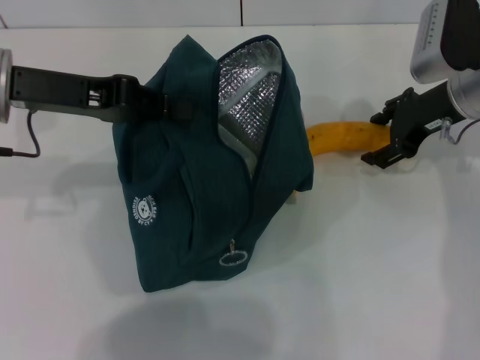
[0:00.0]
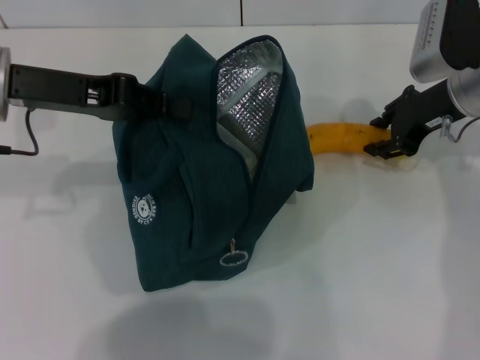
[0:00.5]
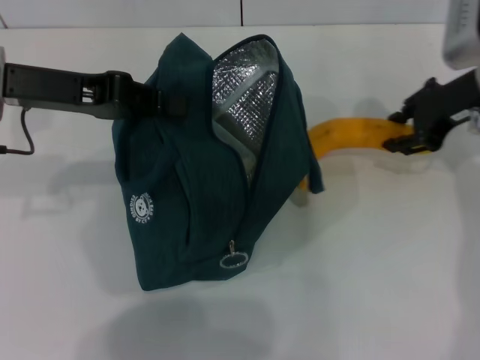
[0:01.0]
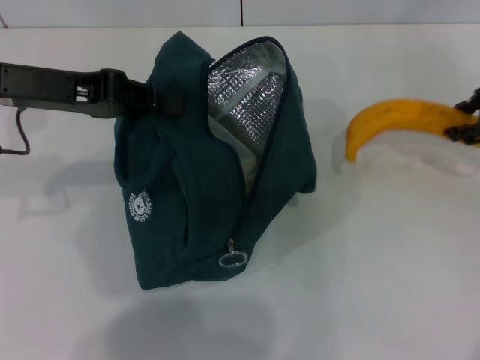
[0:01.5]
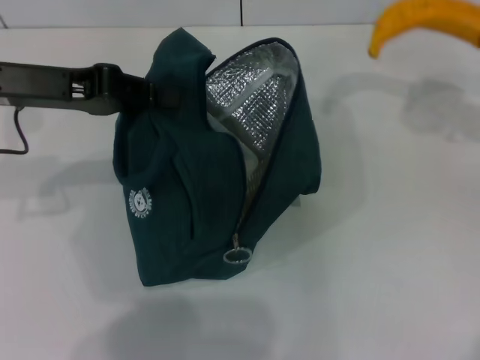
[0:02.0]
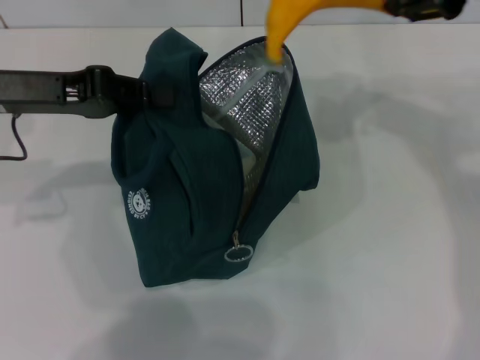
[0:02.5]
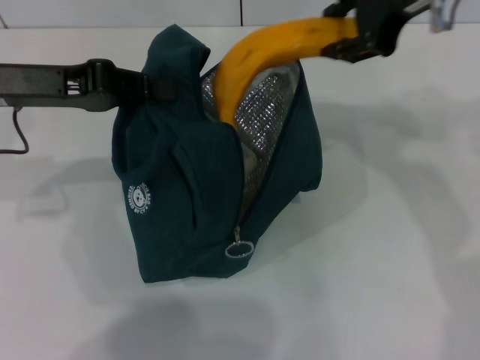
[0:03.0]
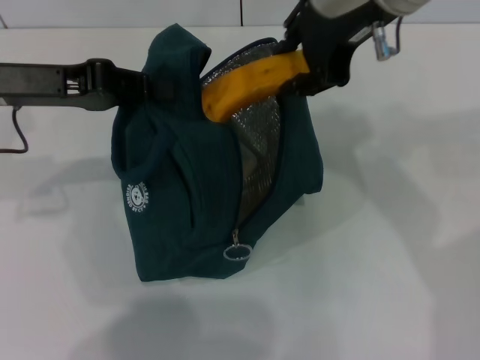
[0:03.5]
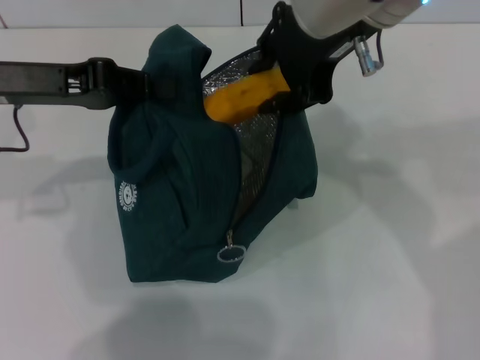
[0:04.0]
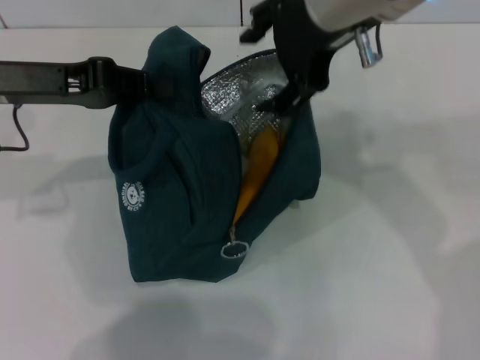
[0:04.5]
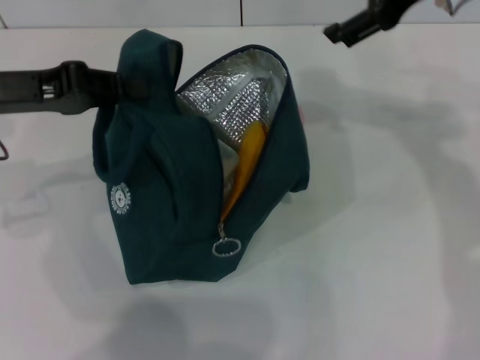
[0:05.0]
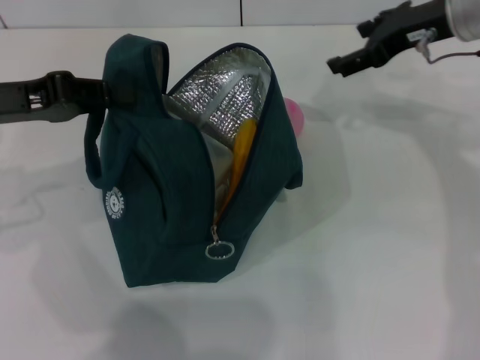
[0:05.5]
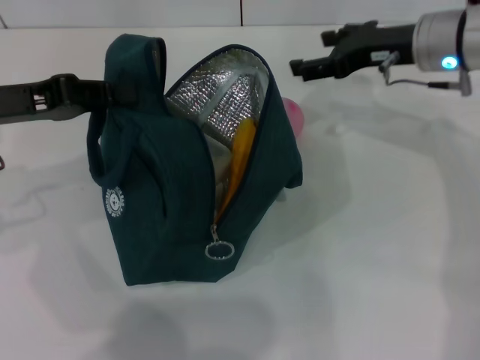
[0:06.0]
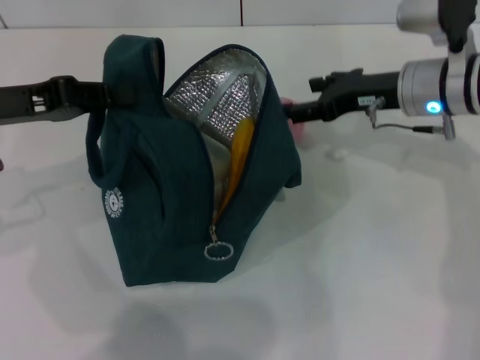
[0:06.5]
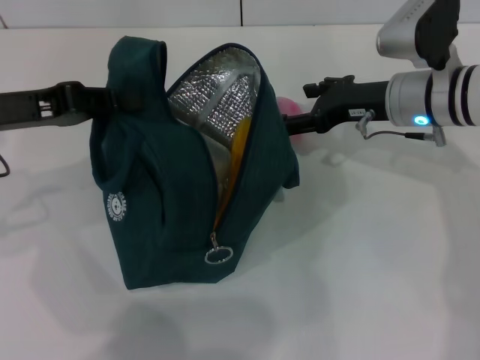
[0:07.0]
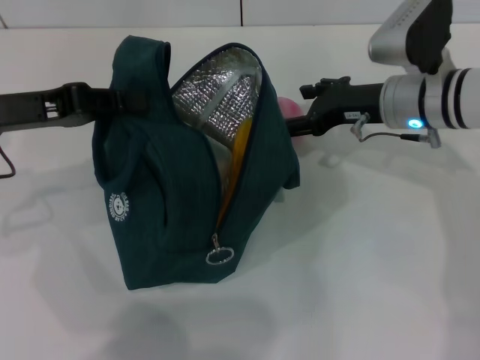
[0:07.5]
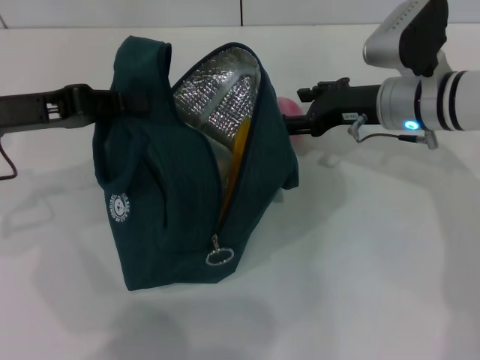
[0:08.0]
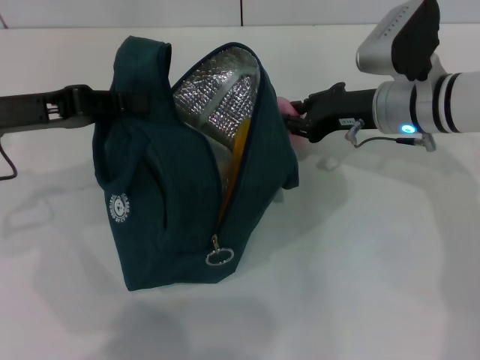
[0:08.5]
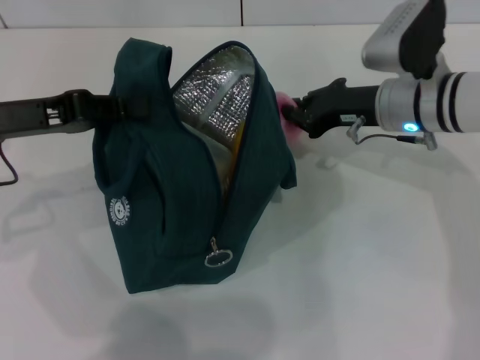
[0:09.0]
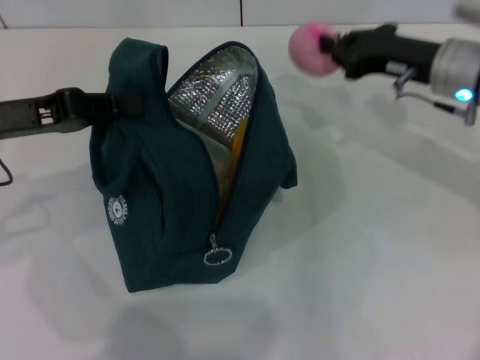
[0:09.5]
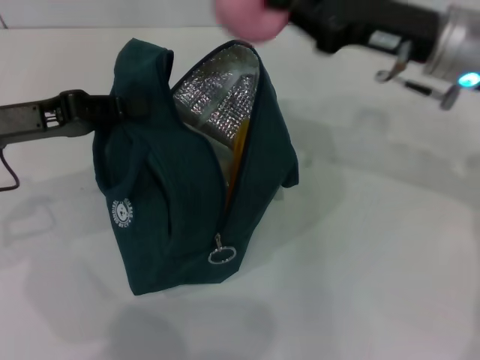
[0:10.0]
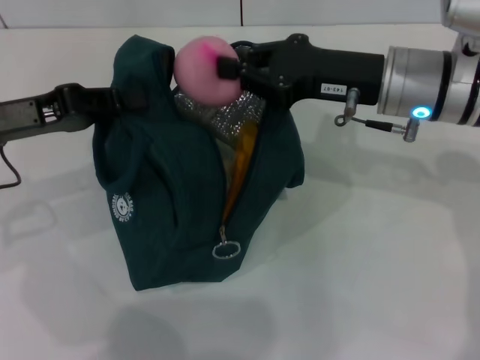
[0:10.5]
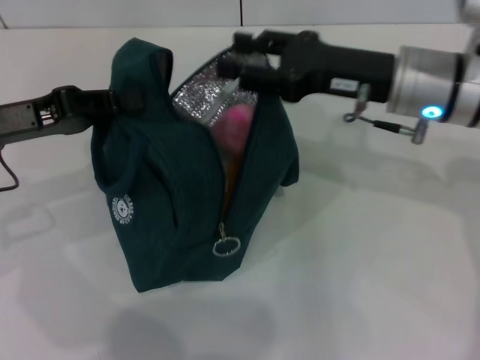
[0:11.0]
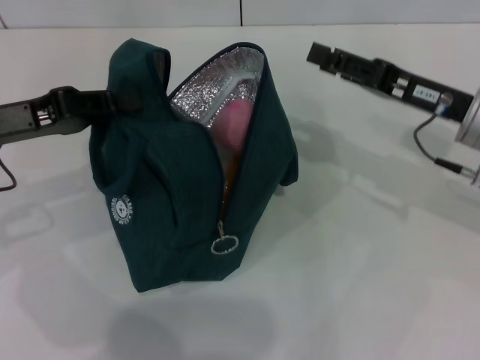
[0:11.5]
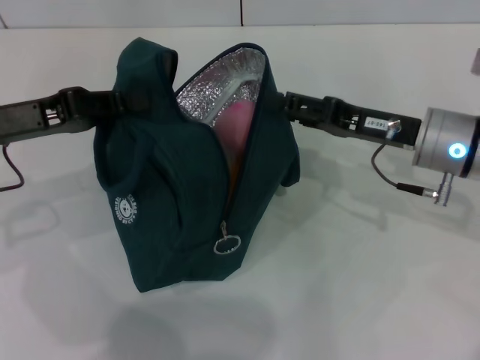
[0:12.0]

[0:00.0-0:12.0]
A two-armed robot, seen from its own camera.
Step, 0:01.0 to 0:04.5: Put the banana into the lunch bag with your right hand.
Step, 0:05.0 to 0:08.5: Grab the peach with your right hand.
0:00.0 to 0:02.0: The right gripper shifts roughly 15 cm upward and to the right, and closes its fingers.
0:02.0 to 0:04.0: The right gripper heads to the left, covering roughly 25 cm.
0:04.0 to 0:06.0: The right gripper is displaced downward, to the right and forward by roughly 20 cm, and opens its fingers.
0:06.0 to 0:08.0: The right gripper moves downward, some 5 cm.
0:08.0 to 0:10.0: The right gripper shifts about 10 cm upward, and closes up.
0:10.0 to 0:12.0: The right gripper goes some 10 cm downward, and opens up.

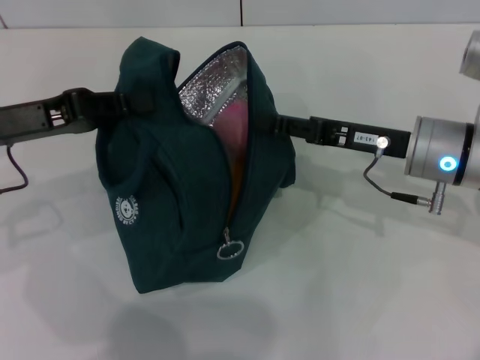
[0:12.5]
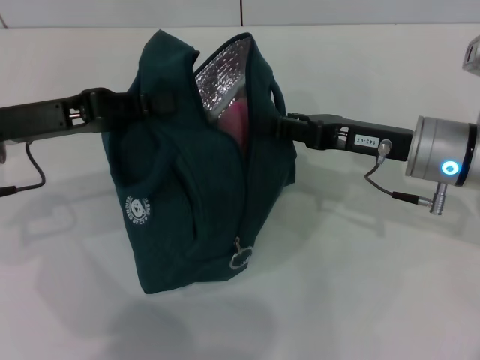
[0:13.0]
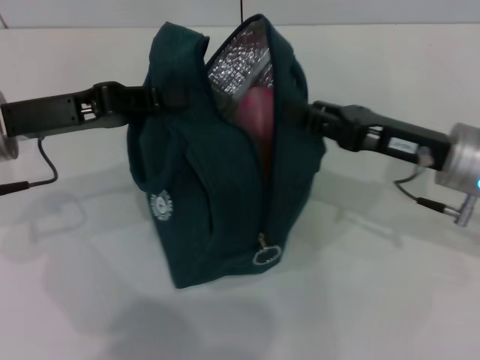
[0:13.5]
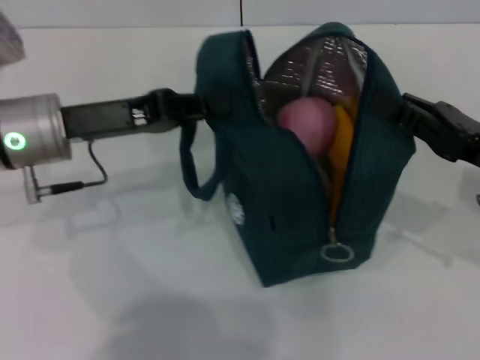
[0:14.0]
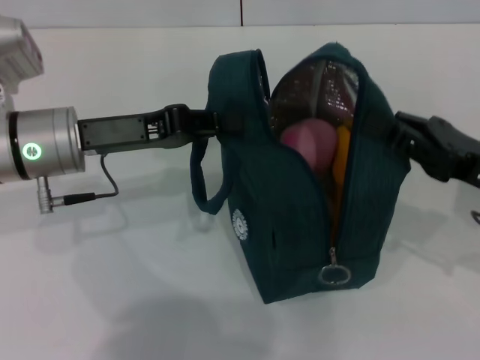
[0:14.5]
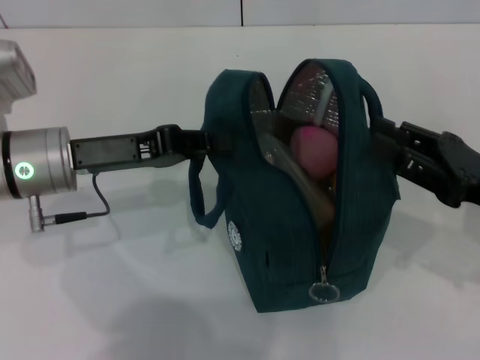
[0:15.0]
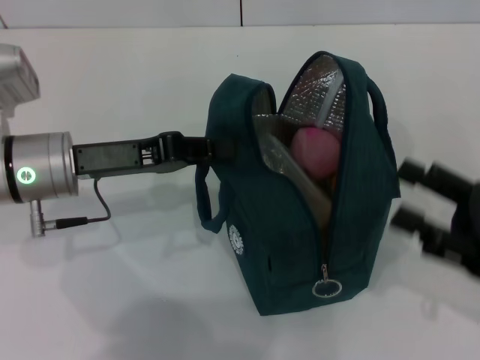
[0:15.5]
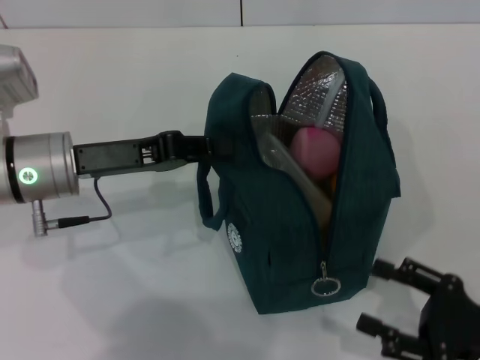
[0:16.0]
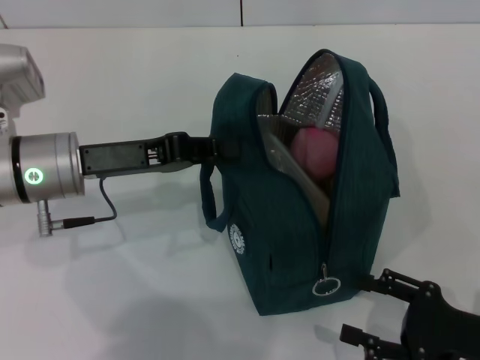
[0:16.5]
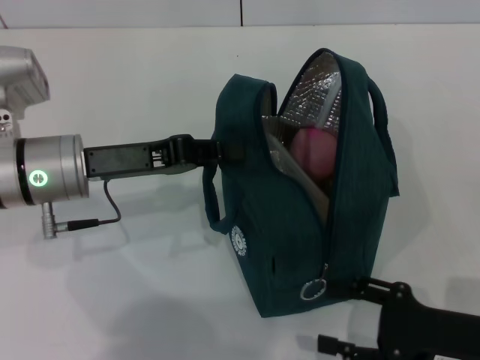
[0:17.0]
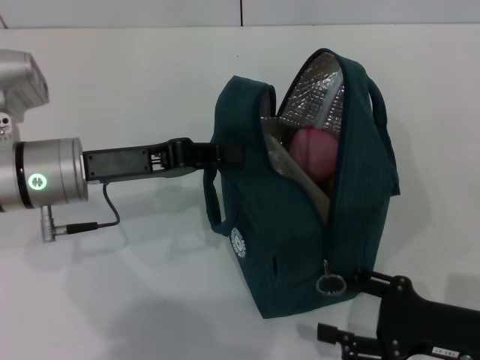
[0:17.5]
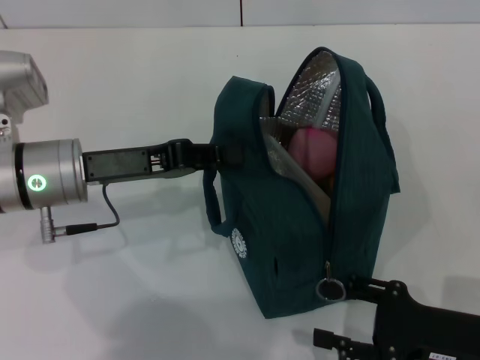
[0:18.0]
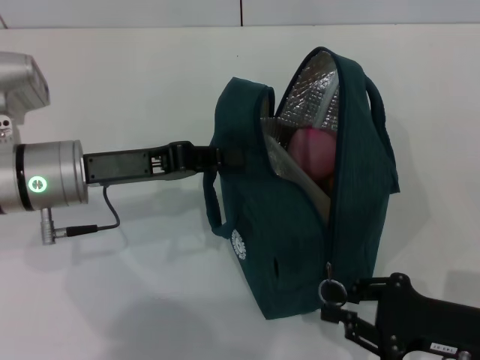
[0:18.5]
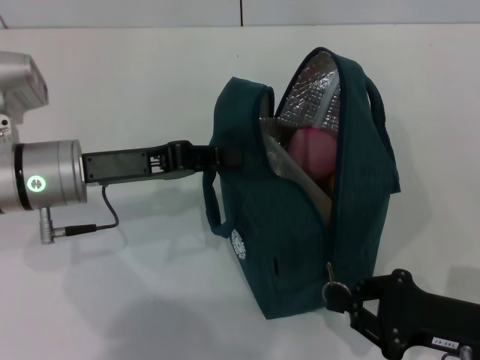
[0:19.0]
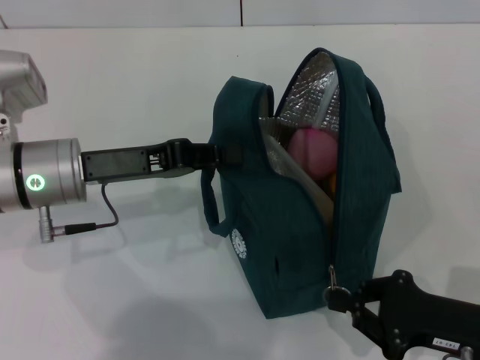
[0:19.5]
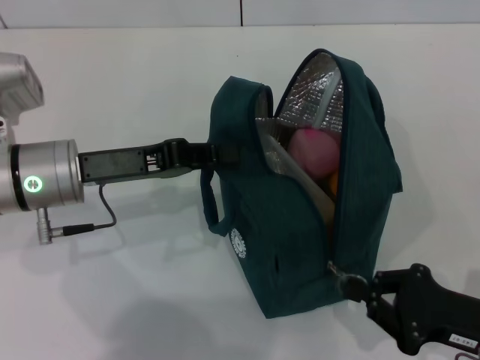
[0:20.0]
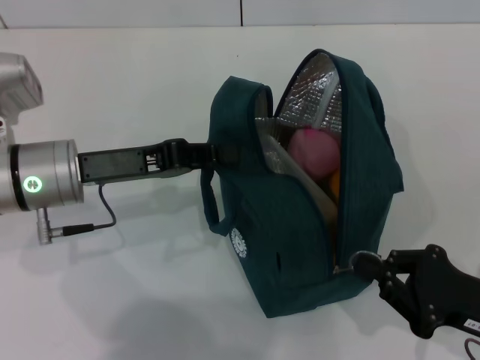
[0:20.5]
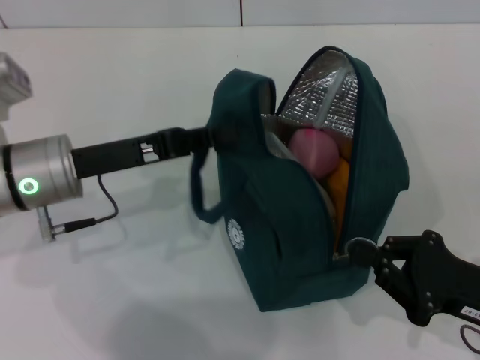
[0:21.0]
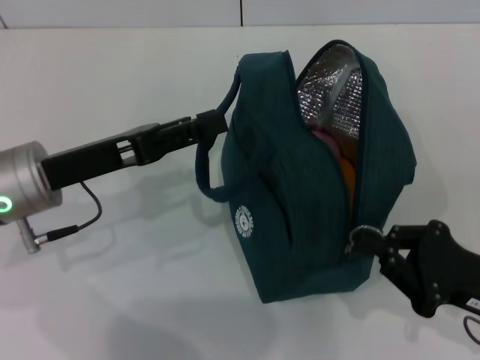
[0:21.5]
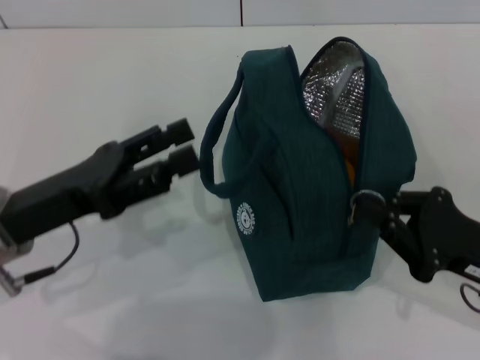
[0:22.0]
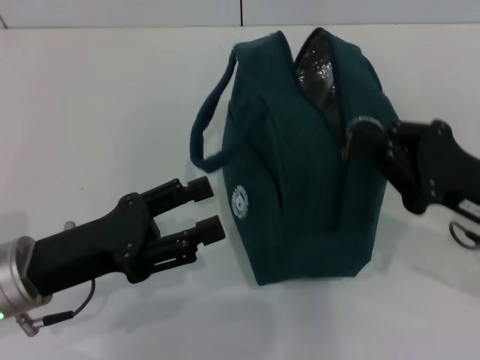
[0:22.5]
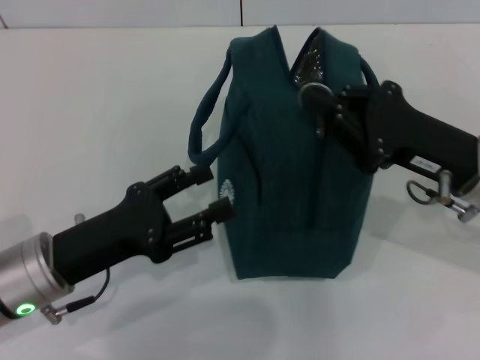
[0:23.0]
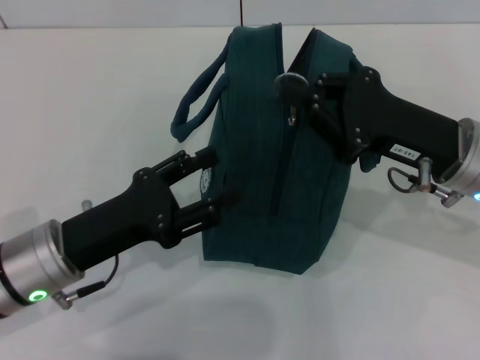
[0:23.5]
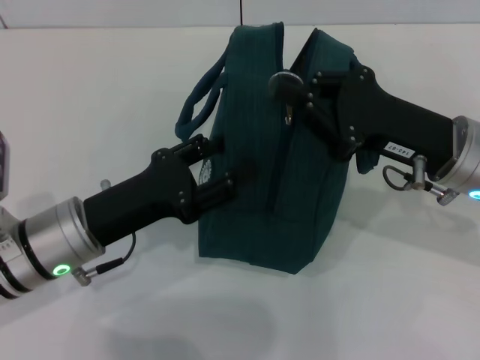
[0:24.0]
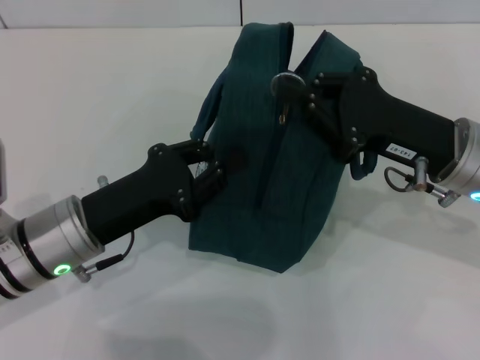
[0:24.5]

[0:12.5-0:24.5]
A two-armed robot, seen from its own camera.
Step, 0:12.5 to 0:15.0: Hold the lunch bag with your right hand.
Step, 0:15.5 to 0:21.5: Hold the lunch bag with your left hand.
0:12.5 to 0:14.5: The left gripper goes about 5 cm to the right, while the right gripper shifts roughly 10 cm to the right and backward, and closes.
0:14.5 to 0:16.5: The right gripper travels backward and downward by approximately 15 cm, and opens up.
0:16.5 to 0:18.5: The grippers move only a little.
0:18.5 to 0:20.5: The right gripper closes its fingers.
0:20.5 to 0:22.5: The right gripper moves forward and upward, some 10 cm. The left gripper is displaced backward by approximately 10 cm, and opens.
0:22.5 to 0:24.5: The right gripper travels to the left by roughly 5 cm; the left gripper shifts by some 5 cm, and closes.

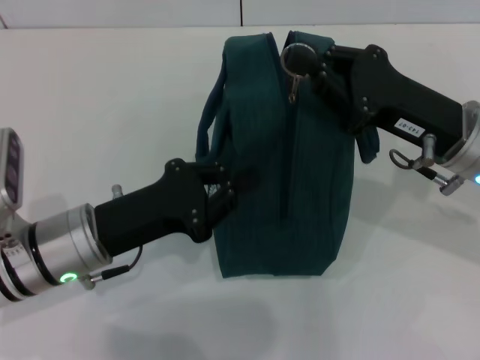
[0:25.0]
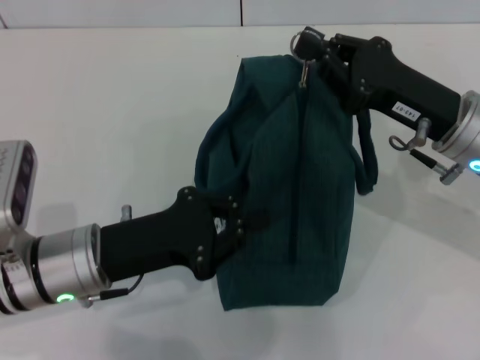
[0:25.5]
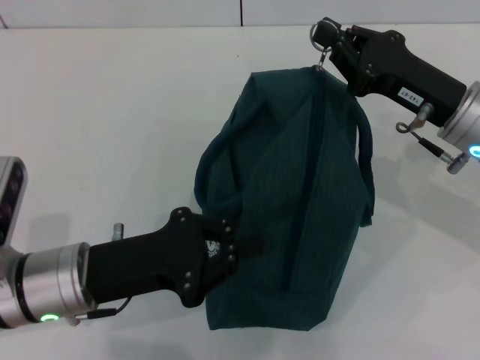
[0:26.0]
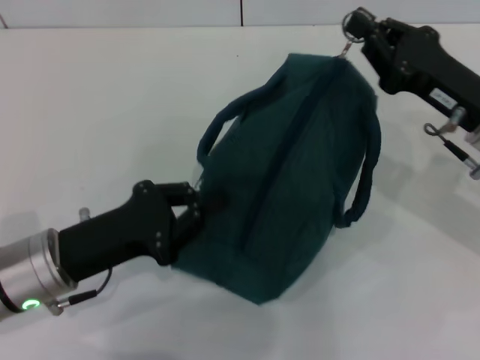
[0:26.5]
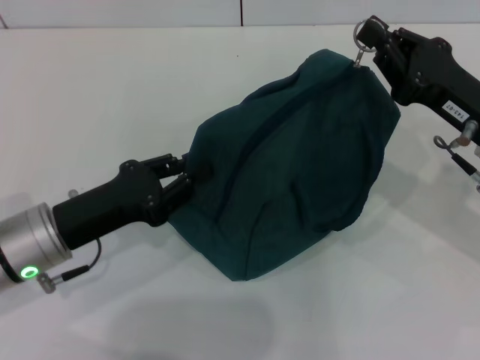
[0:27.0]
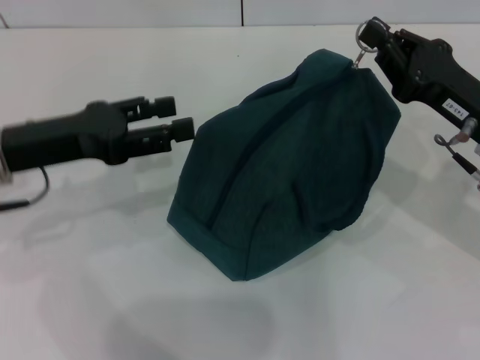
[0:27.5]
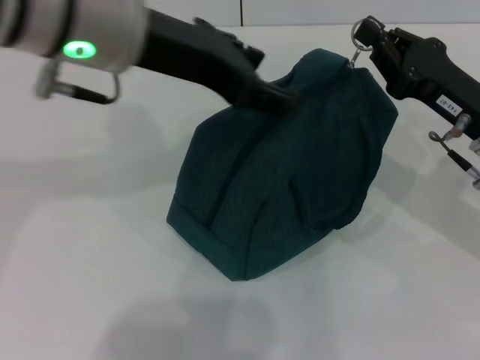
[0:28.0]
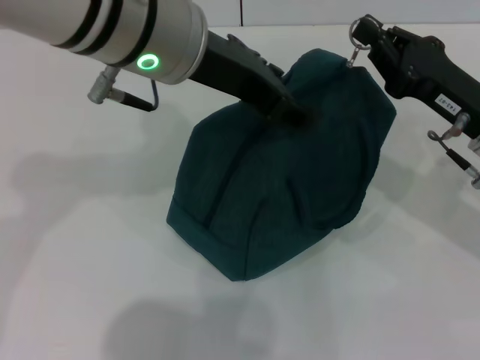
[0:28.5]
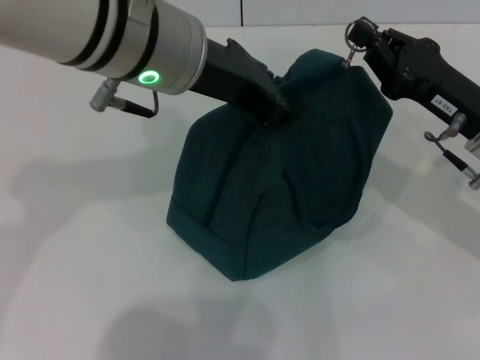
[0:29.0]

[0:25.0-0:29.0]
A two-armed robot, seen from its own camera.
0:27.0 to 0:29.0: The left gripper travels upward and to the right by approximately 25 cm, and opens its fingers.
